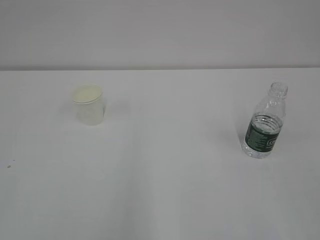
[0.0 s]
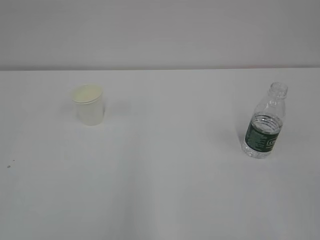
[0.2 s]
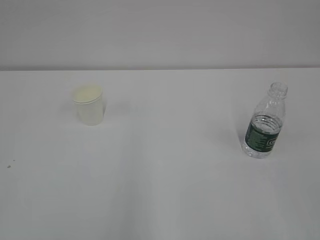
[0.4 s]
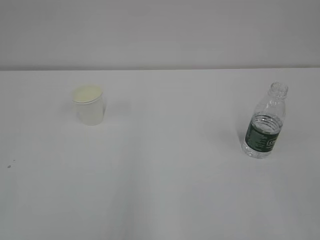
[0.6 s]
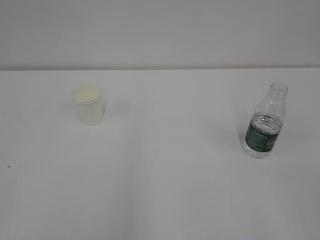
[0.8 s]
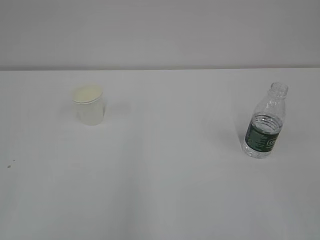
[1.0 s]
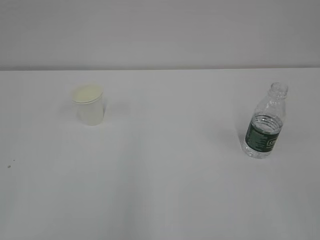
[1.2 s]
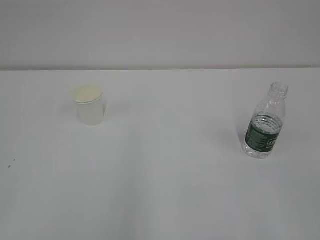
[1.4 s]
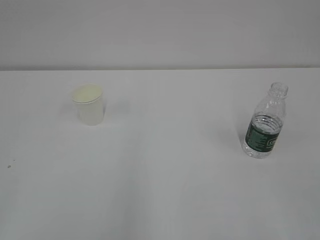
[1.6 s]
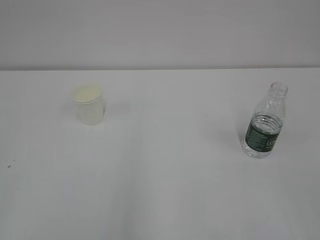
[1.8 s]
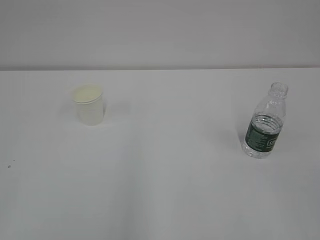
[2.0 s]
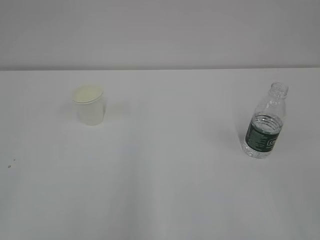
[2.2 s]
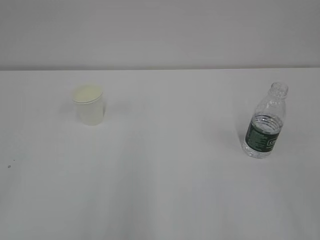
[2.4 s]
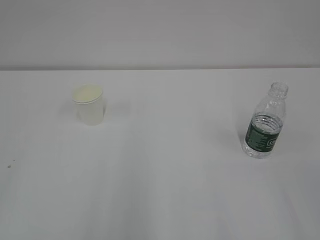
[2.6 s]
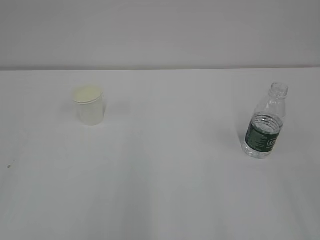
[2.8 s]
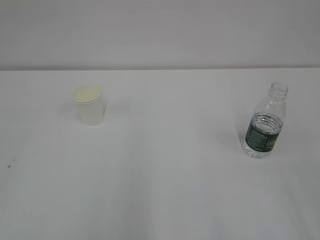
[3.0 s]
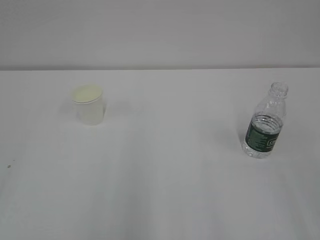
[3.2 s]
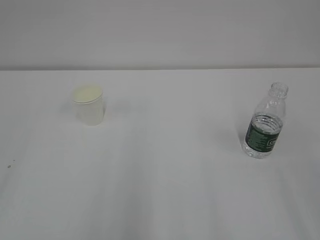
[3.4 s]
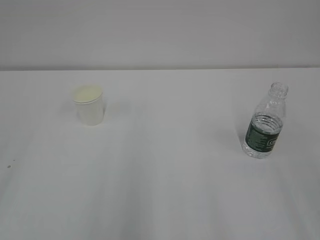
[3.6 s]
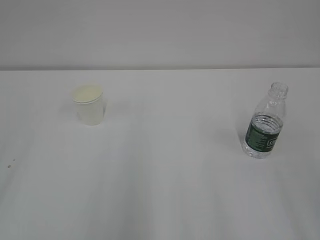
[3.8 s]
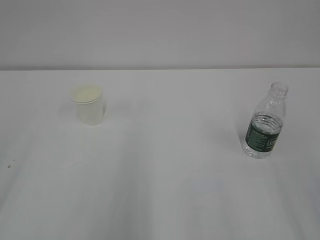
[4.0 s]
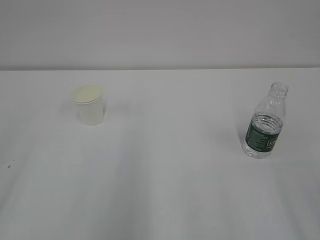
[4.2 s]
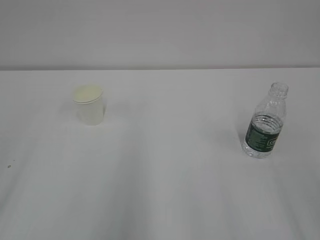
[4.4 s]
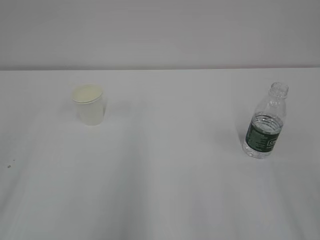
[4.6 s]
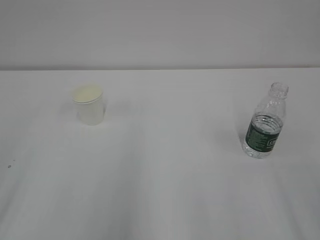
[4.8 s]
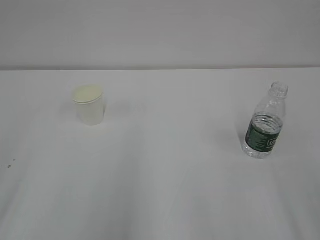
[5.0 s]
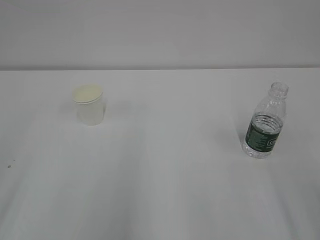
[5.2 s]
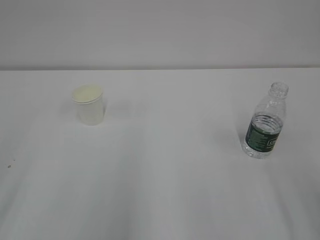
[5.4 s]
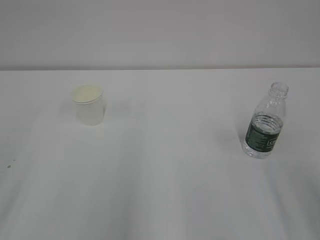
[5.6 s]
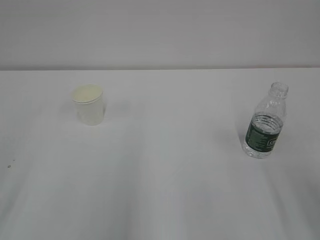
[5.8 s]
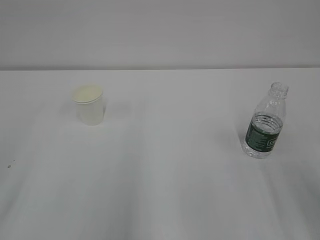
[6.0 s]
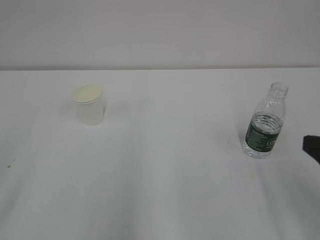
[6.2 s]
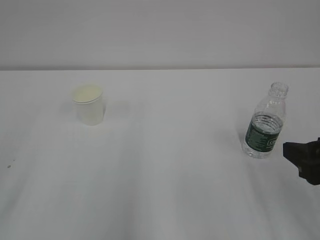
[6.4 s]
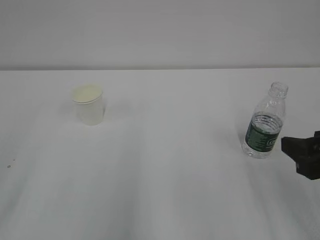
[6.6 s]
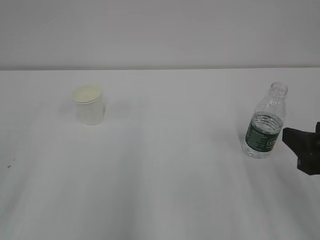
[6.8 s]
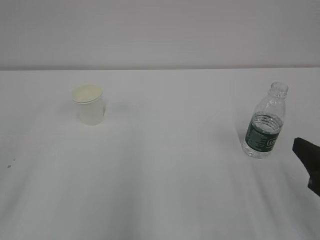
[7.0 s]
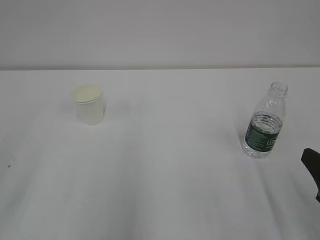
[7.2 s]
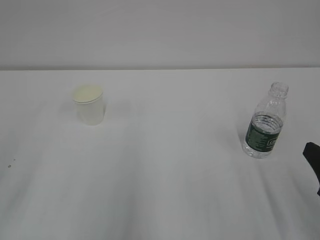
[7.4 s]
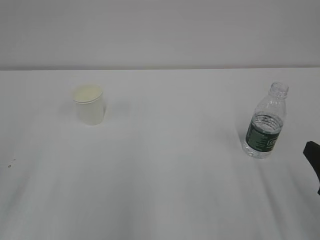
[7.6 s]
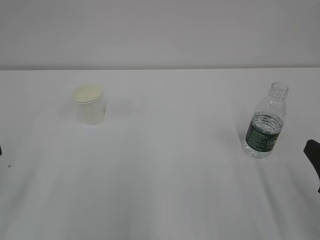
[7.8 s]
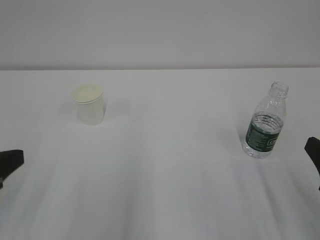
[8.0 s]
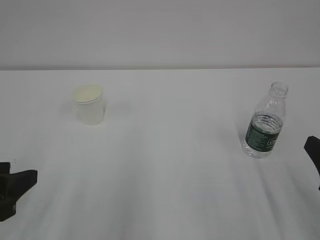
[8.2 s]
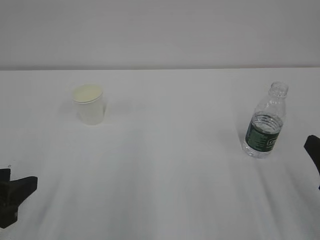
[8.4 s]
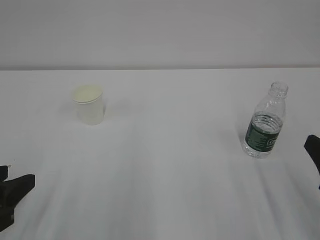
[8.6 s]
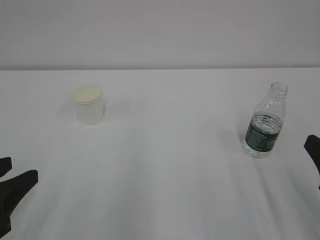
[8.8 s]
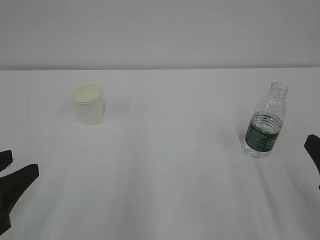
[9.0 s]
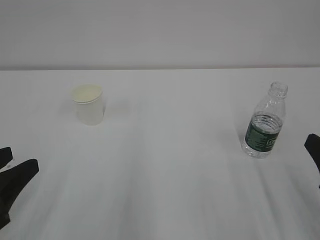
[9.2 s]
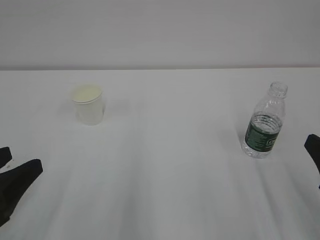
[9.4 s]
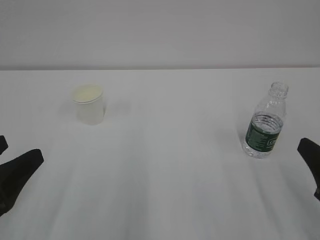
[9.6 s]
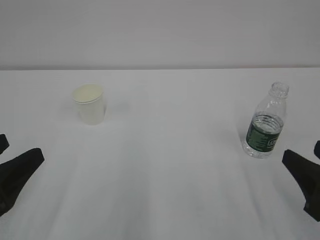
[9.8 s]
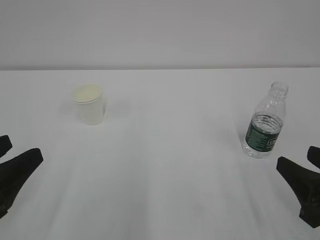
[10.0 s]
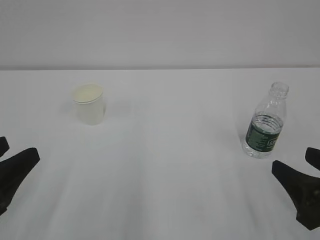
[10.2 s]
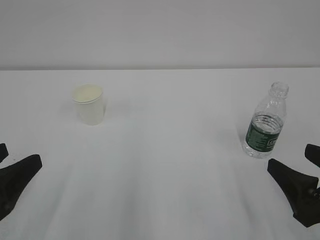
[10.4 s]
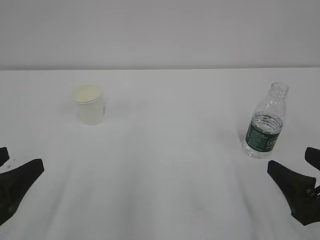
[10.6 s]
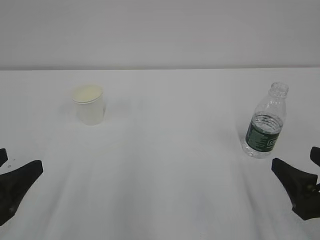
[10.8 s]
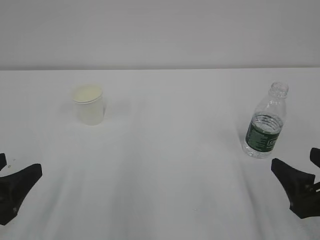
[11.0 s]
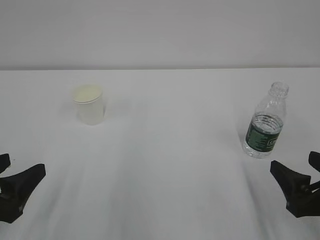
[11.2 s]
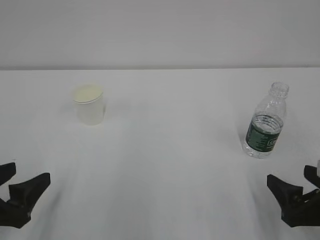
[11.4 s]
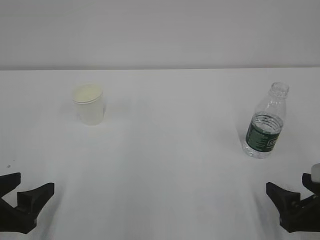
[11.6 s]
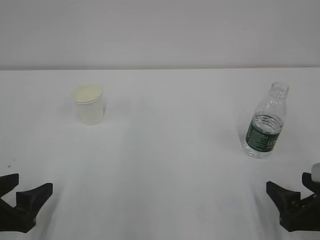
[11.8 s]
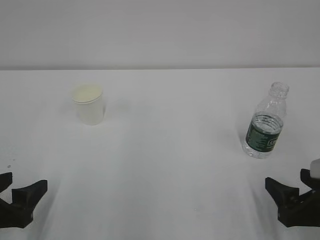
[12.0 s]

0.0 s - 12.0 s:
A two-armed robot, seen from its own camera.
7.6 s - 9.0 s: The left gripper moves downward, about 5 cm.
9.0 s - 10.4 s: The left gripper opens its fingers. The right gripper opens up.
10.4 s - 12.0 s: Both grippers move downward, approximately 5 cm.

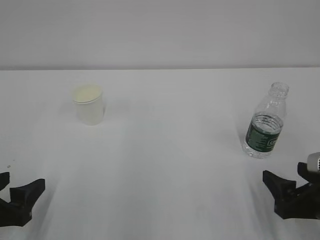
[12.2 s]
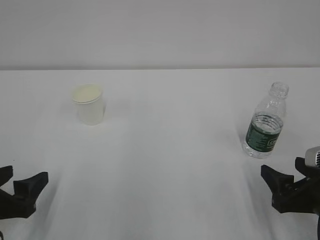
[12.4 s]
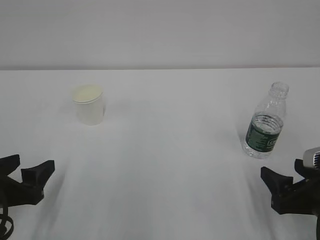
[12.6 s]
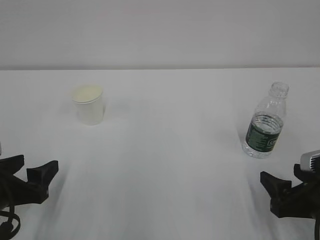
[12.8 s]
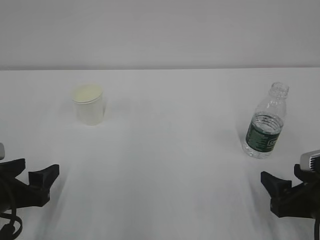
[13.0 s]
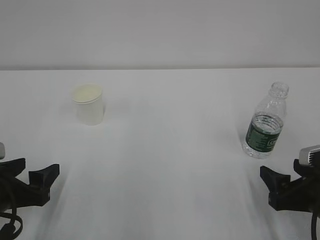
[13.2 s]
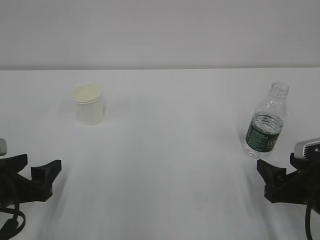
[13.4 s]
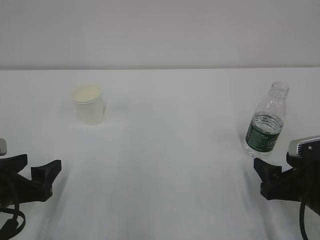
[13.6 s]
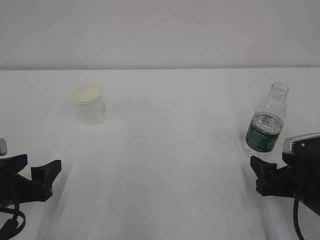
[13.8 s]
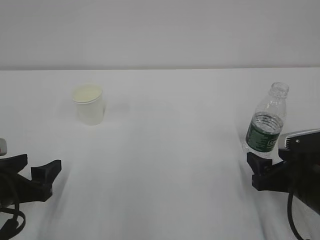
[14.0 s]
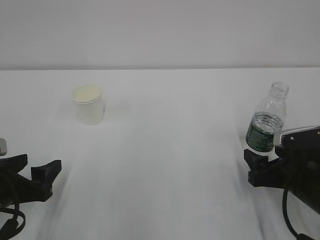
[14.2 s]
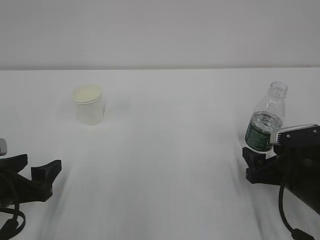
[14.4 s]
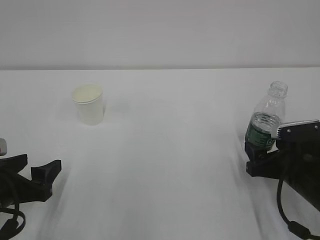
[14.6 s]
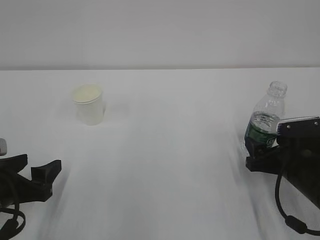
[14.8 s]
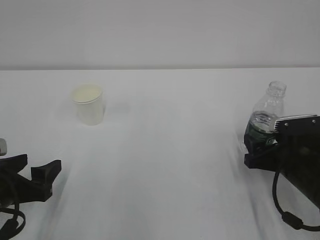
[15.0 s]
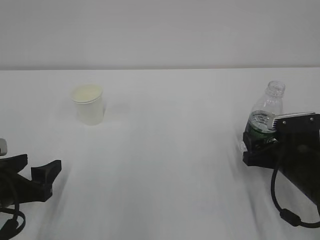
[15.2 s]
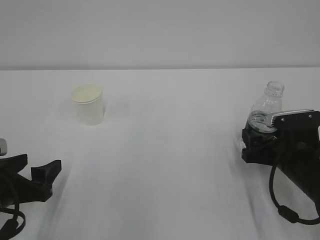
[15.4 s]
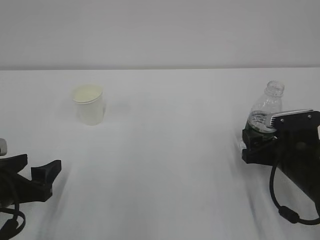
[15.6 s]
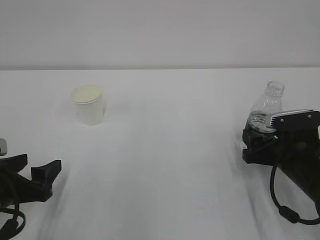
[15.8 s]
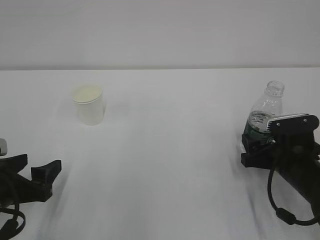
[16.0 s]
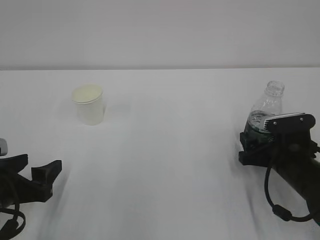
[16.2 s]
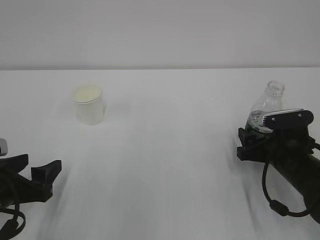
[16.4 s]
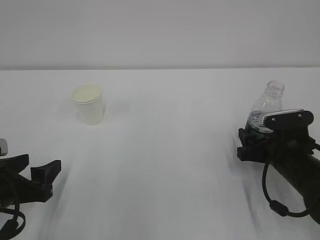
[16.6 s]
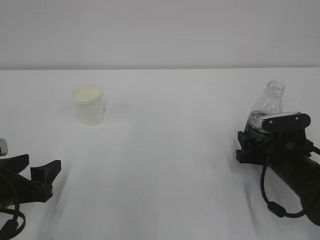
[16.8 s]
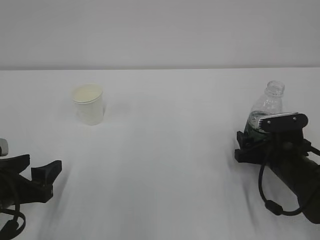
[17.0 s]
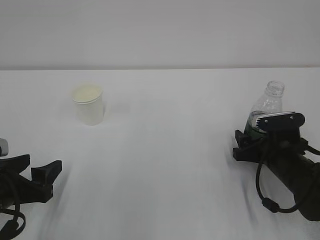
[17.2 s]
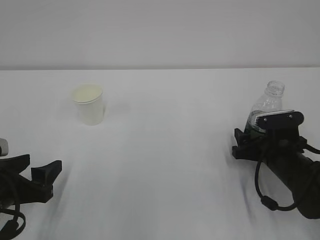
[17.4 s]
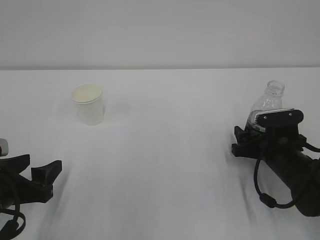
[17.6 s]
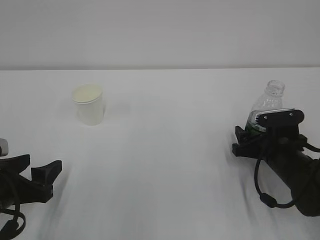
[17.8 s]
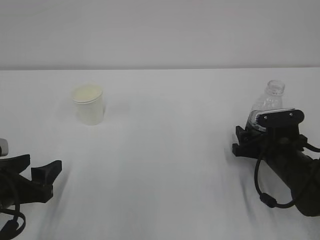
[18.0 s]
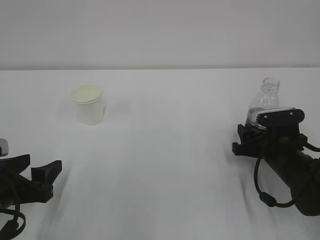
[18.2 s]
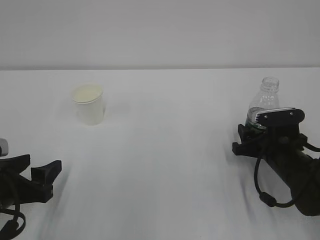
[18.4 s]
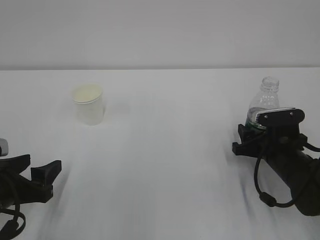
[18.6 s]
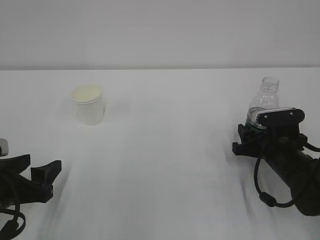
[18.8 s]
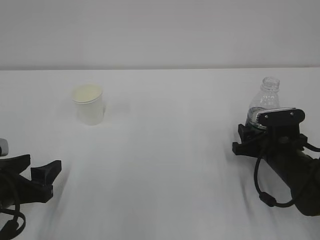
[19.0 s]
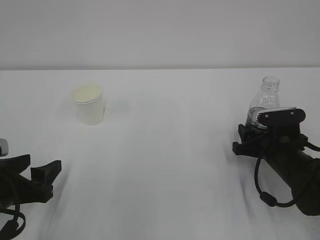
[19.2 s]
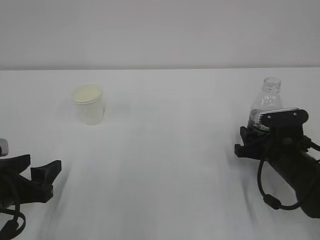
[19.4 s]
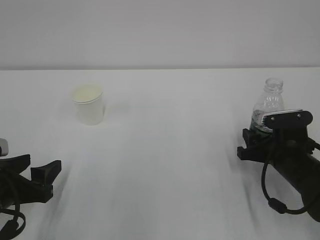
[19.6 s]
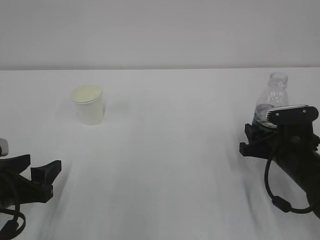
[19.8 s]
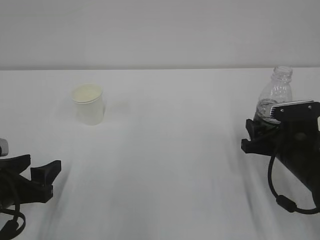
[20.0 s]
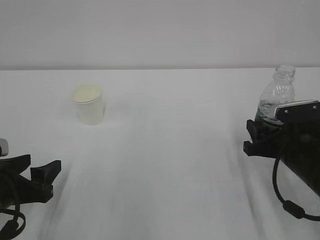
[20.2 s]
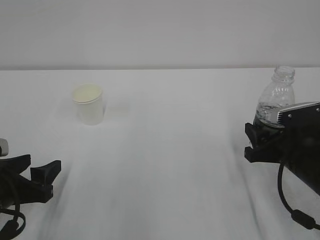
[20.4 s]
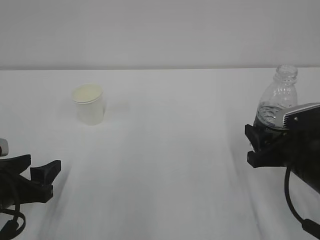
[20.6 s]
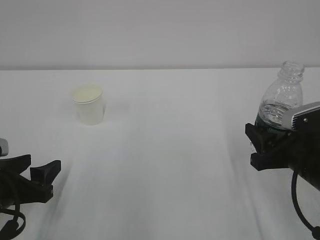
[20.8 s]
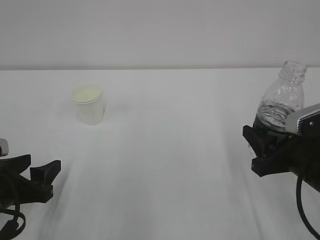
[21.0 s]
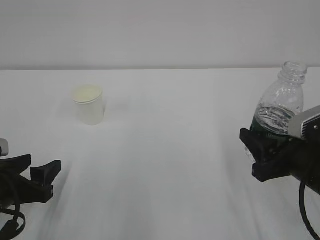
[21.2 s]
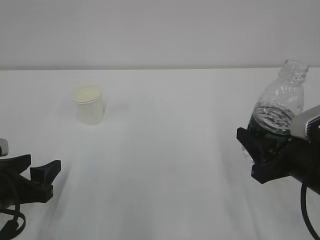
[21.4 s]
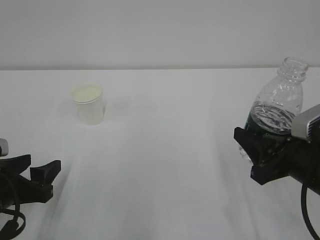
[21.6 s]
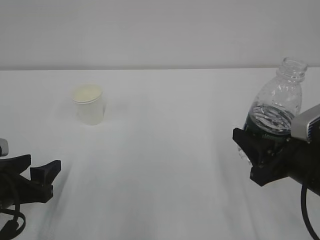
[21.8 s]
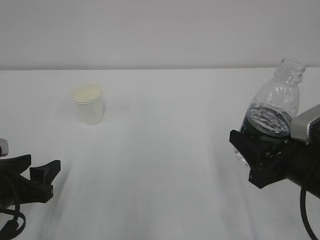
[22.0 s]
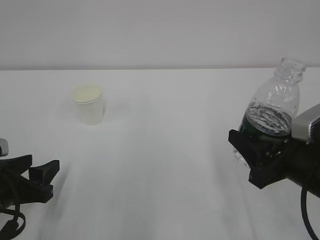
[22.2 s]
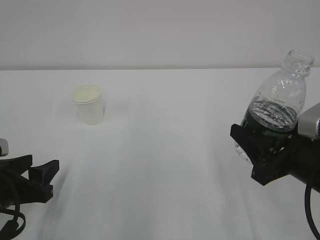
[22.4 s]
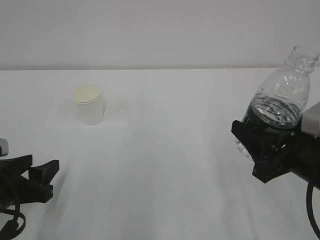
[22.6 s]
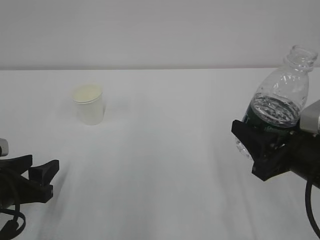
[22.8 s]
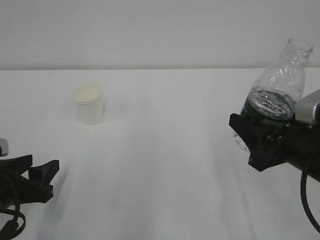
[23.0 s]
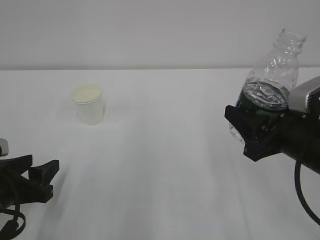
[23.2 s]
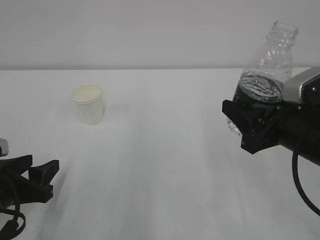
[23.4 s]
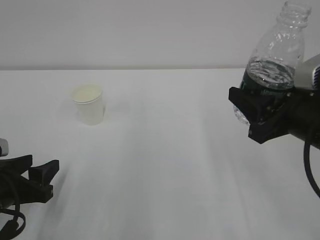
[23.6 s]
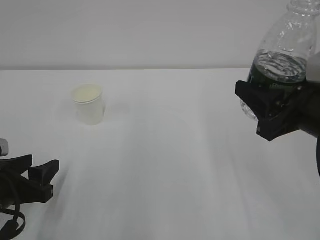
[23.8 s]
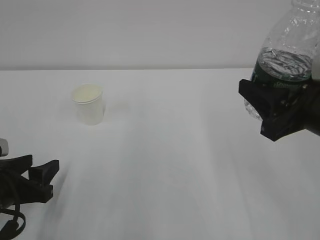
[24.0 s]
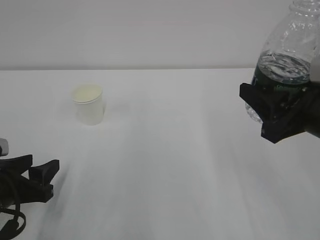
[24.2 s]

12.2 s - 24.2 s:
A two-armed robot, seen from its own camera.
12.2 s - 13.8 s: There are only small adjustments of the grippers.
13.8 s - 15.2 s: The right gripper moves forward, about 5 cm.
15.2 s - 16.6 s: The grippers move only a little.
16.6 s - 18.2 s: The right gripper closes up.
18.2 s - 19.8 s: The grippers make only small movements.
19.8 s - 21.2 s: The right gripper goes approximately 10 cm backward and upward.
21.2 s - 22.6 s: The grippers stay close to where they were, moving slightly.
22.6 s - 24.2 s: The right gripper goes about 5 cm upward.
